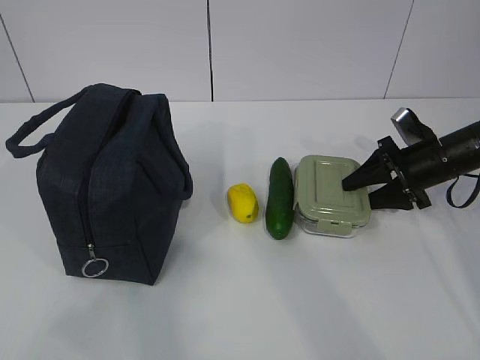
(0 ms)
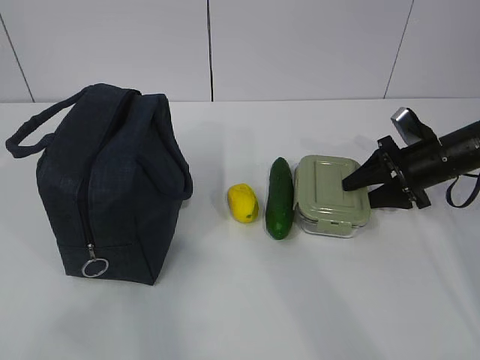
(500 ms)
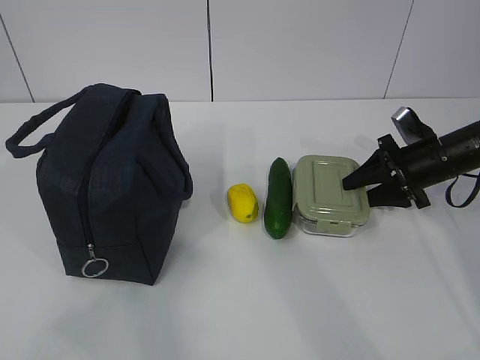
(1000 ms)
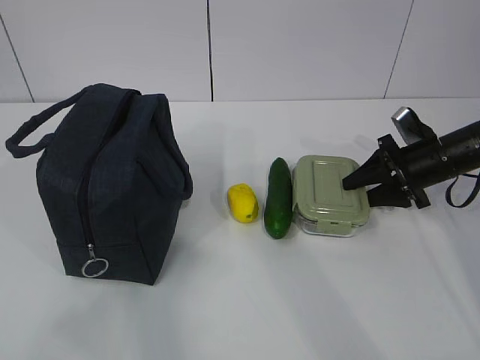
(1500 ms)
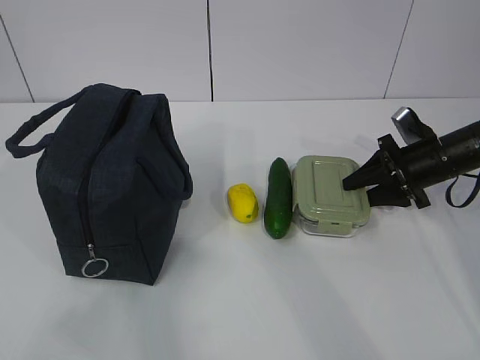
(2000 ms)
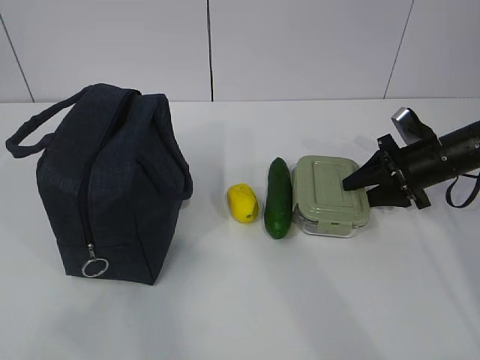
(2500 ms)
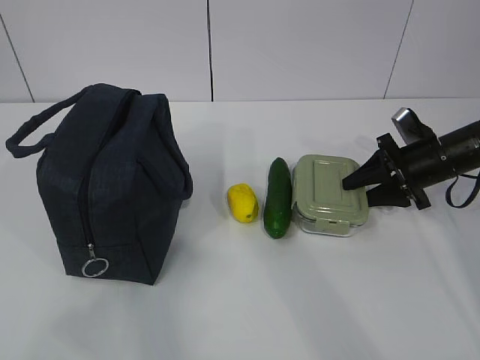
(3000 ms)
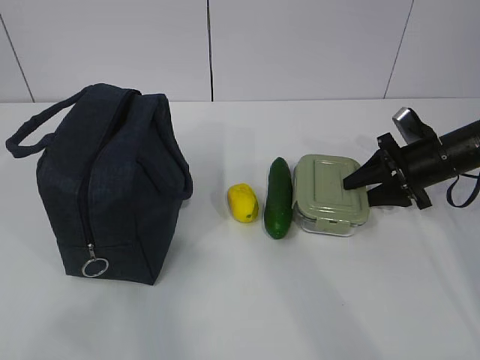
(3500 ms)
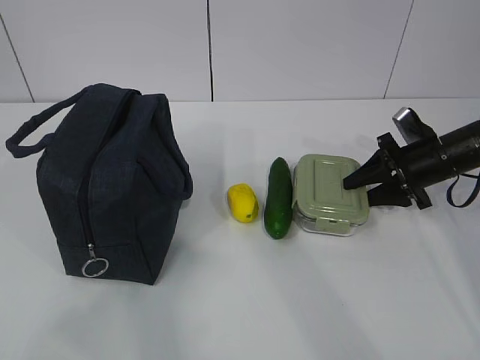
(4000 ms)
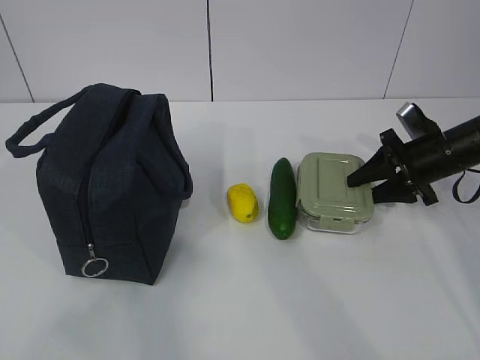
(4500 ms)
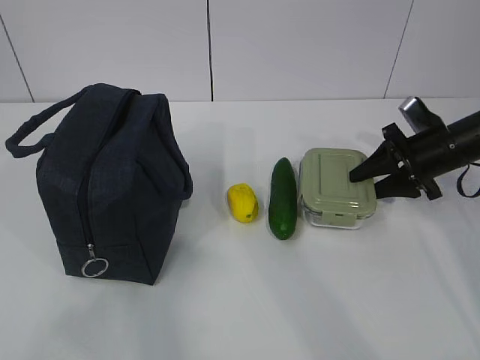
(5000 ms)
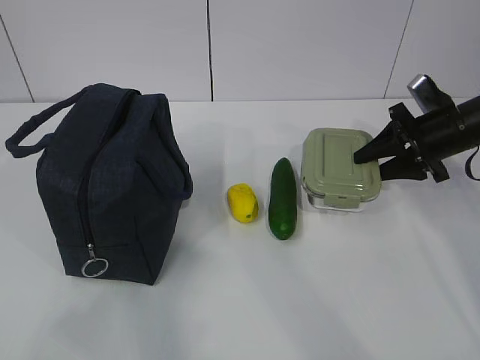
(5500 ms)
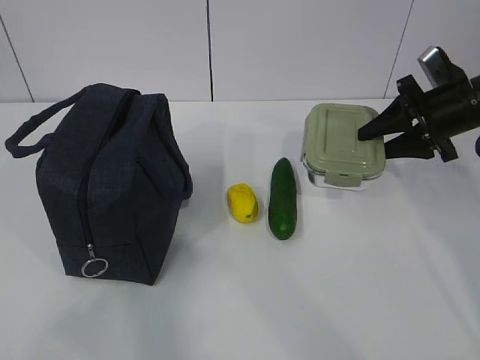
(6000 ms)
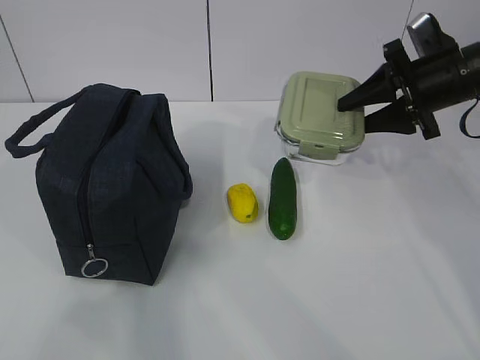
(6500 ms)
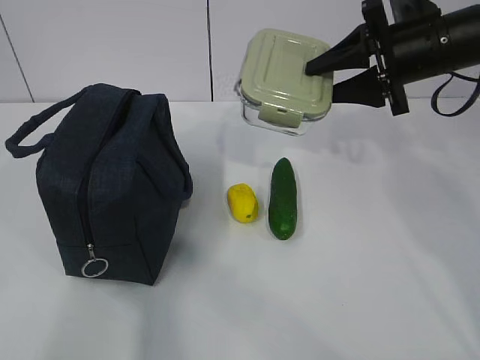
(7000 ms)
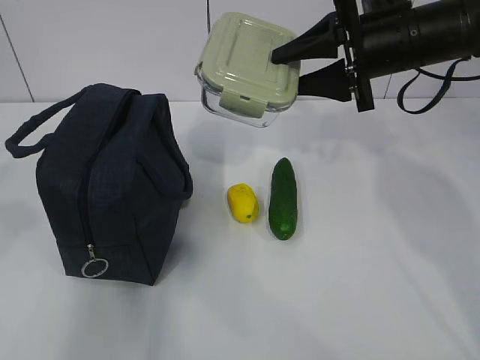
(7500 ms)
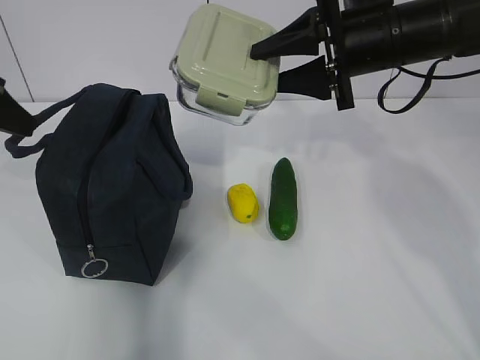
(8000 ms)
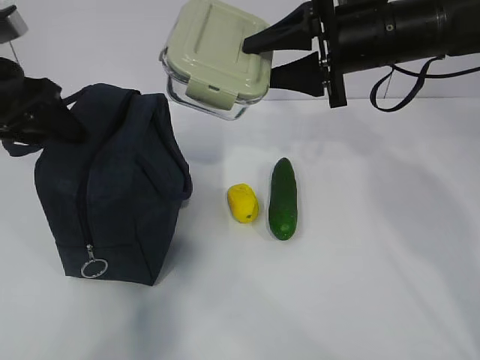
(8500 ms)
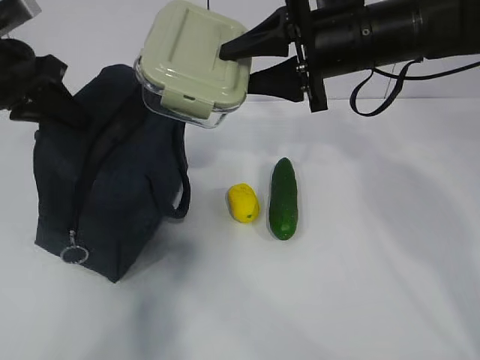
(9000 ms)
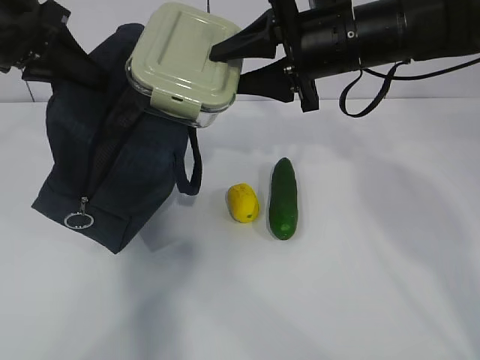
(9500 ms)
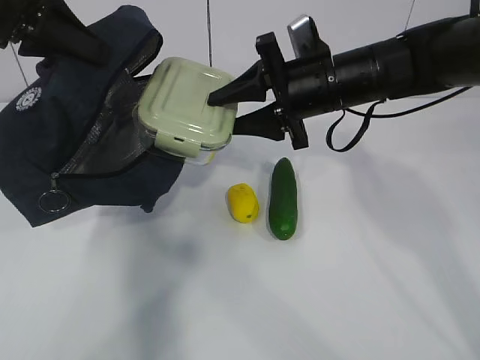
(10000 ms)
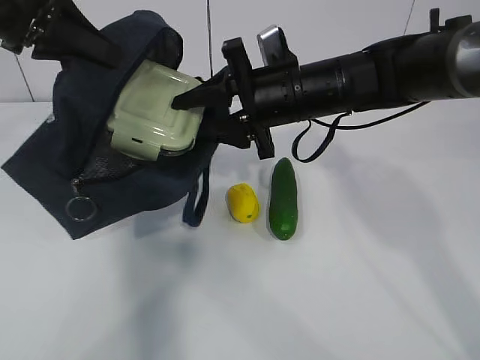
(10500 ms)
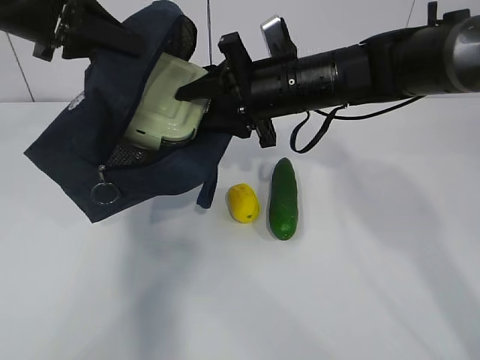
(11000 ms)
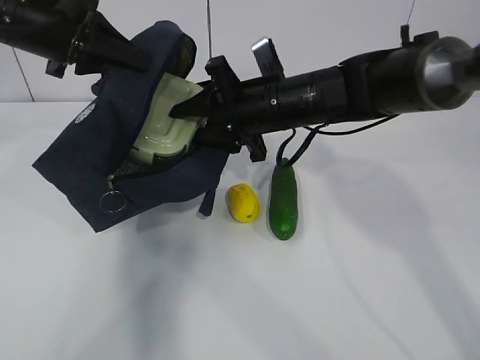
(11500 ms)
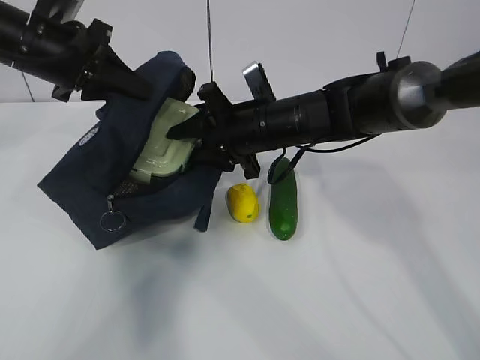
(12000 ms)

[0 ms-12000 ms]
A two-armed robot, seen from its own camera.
Step, 3000 ms to 7000 ms: Place it into the bag with your right hand.
Step, 7500 ms to 10500 ms: Grab the cucumber with your right hand.
0 ms to 4000 ms: The two grippers keep their place.
4000 ms to 6000 ms: The right gripper goes roughly 10 cm upward.
6000 ms to 8000 ms: The left gripper travels forward by about 30 cm, and opens. Meanwhile the right gripper shifts some 15 cm to the left and upward.
8000 ms to 10000 ms: The right gripper moves downward, some 5 cm; the left gripper goes about 10 cm forward and to the right, and closes its fingers.
10000 ms to 12000 ms: The left gripper moves downward and forward, approximately 10 cm. The right gripper moves to the left and downward, approximately 10 cm.

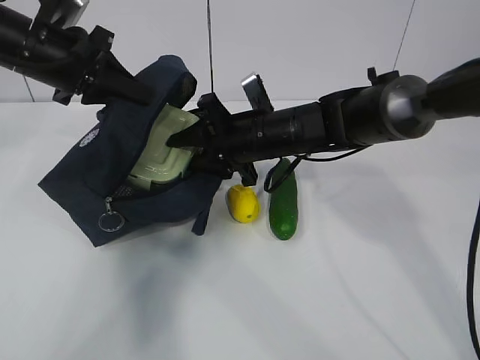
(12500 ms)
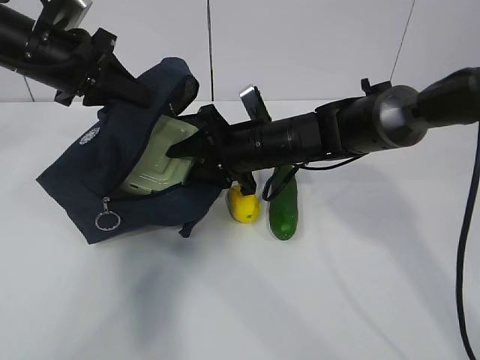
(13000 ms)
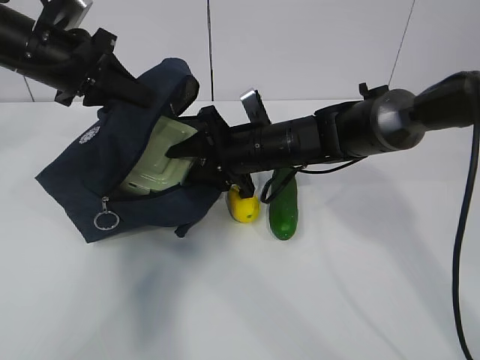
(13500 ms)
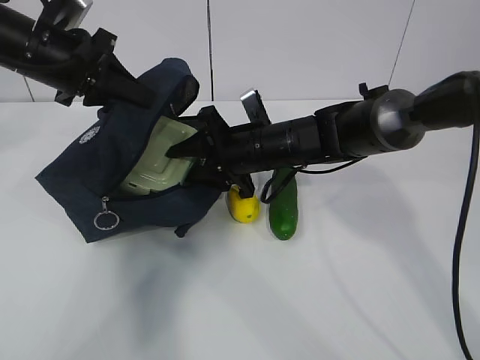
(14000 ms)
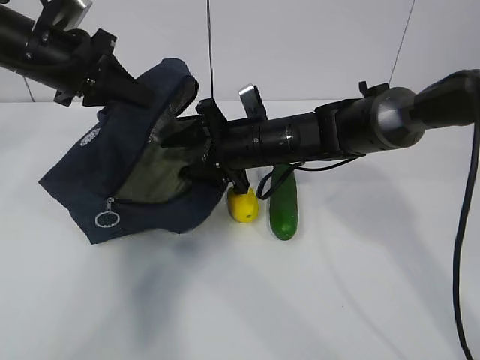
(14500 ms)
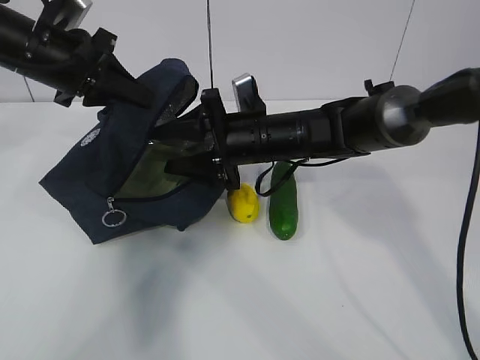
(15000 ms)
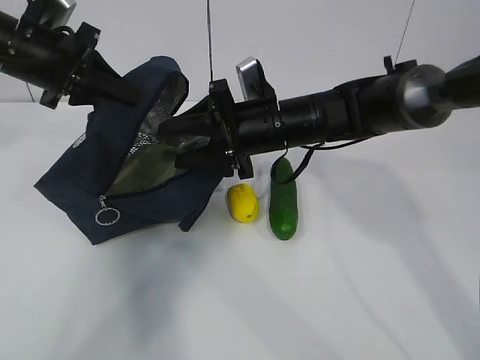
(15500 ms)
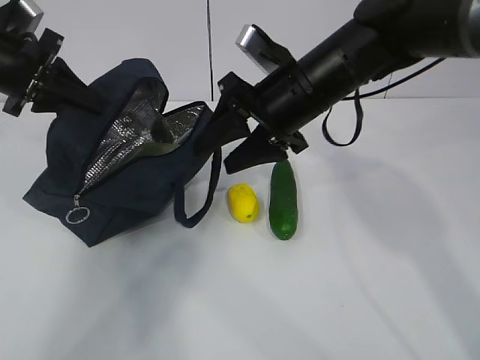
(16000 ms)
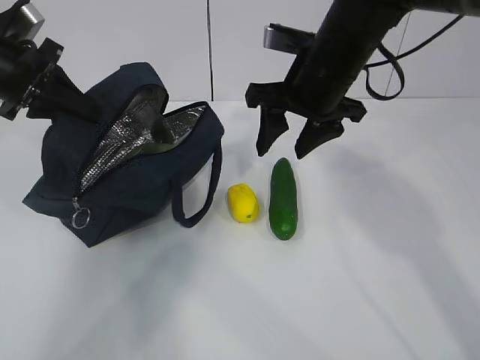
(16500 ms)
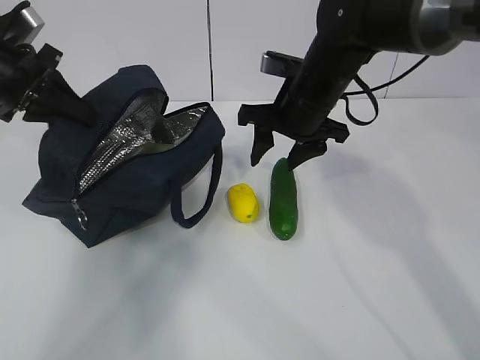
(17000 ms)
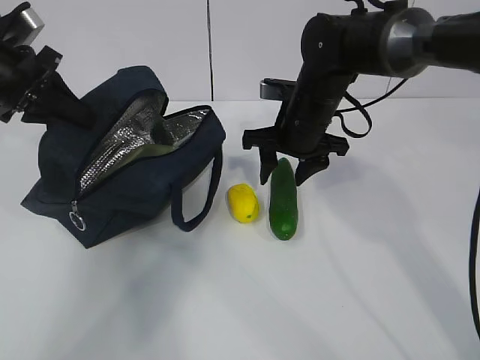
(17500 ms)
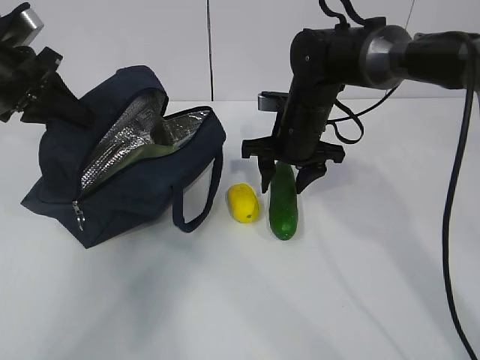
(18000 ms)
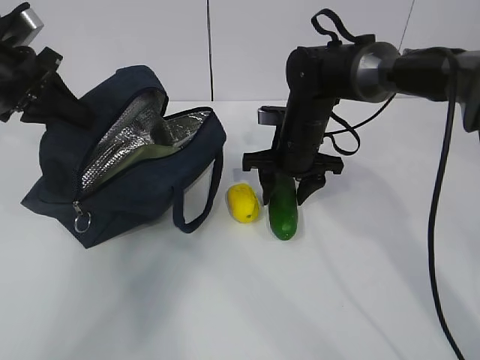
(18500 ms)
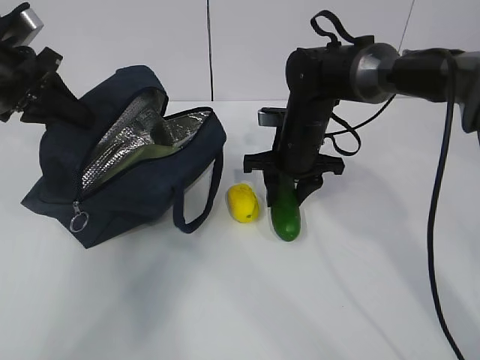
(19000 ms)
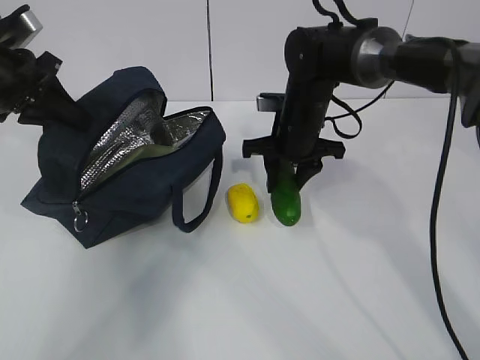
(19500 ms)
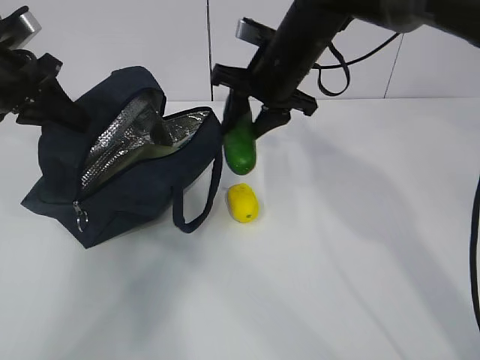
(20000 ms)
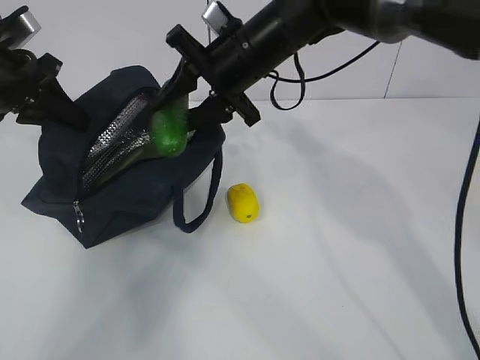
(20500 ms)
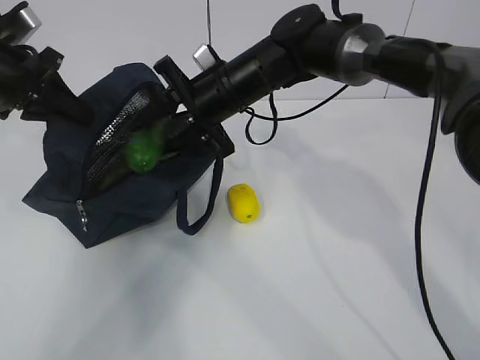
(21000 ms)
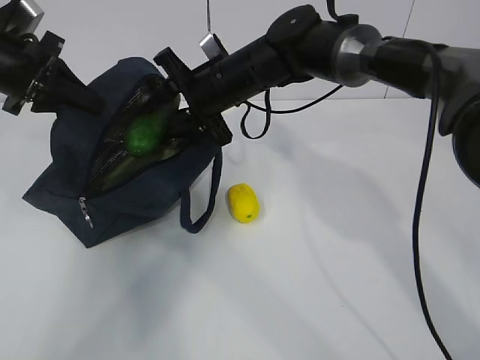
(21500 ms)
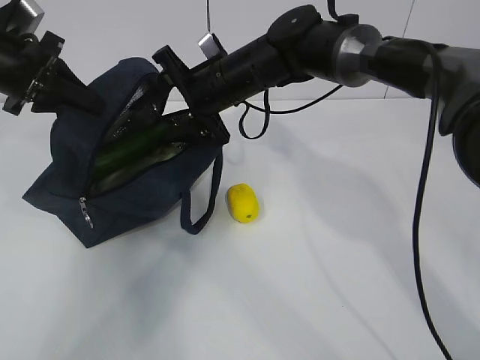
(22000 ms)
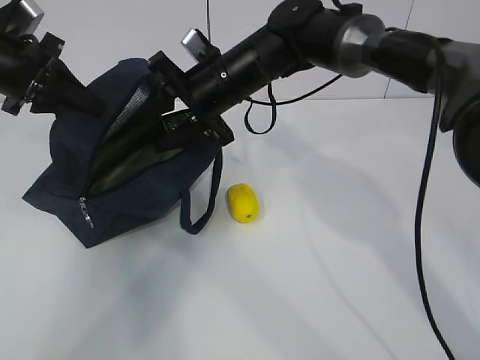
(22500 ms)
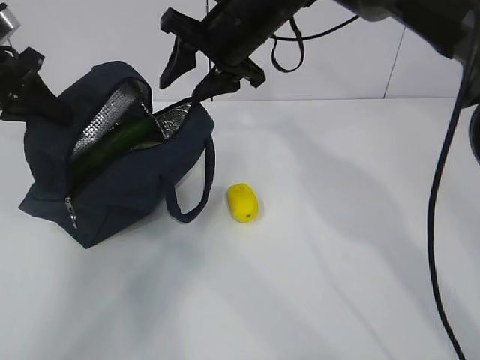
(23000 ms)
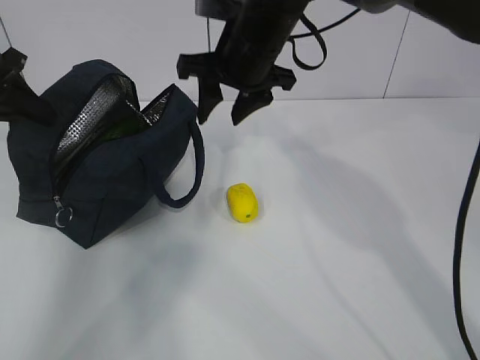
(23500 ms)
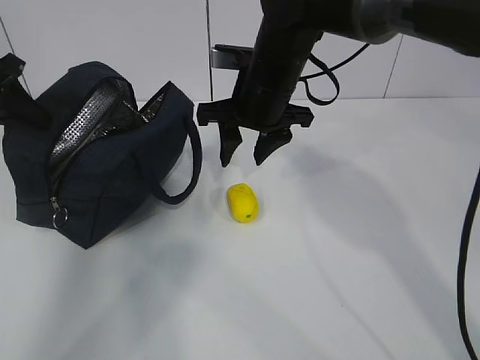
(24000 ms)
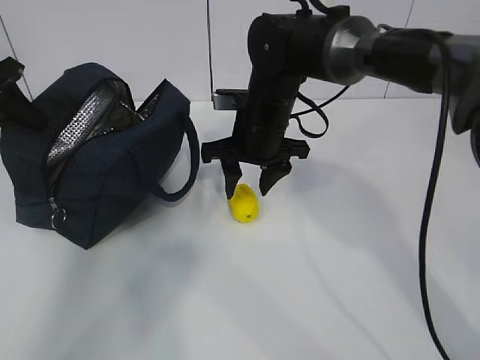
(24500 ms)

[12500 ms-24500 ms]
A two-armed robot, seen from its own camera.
Step, 14000 ms to 16500 ms: Grab the lemon with your right hand.
Step, 19500 ms to 22000 ms: Grab the lunch bag with your right hand.
Step, 22500 ms to 24000 ms: Move the lunch bag to the right.
12500 ms to 14500 ms: The grippers make only small movements.
14500 ms to 16500 ms: The right gripper shifts approximately 15 cm upward and to the right, while the left gripper travels to the left by approximately 5 cm.
16500 ms to 18500 ms: The right gripper moves downward and forward, some 15 cm.
18500 ms to 20500 ms: The right gripper moves upward and to the left, roughly 15 cm.
22500 ms to 24500 ms: The left gripper goes about 5 cm to the left. The right gripper ends up roughly 5 cm from where it was.

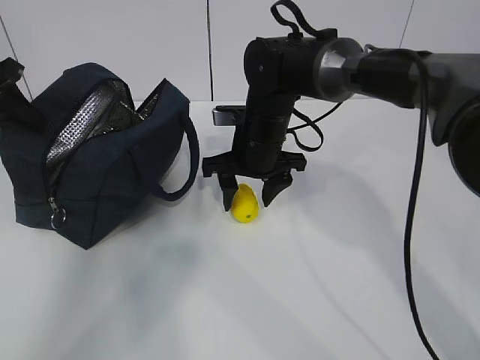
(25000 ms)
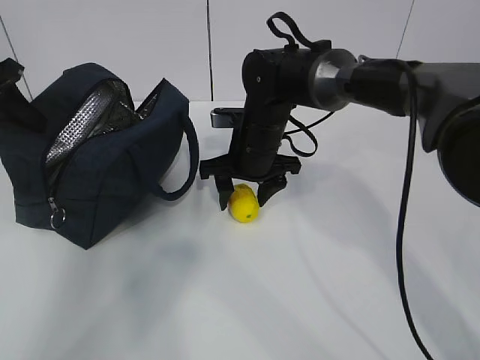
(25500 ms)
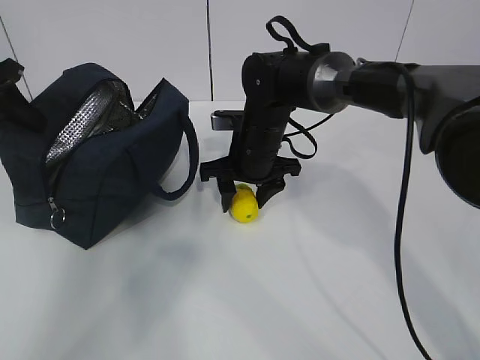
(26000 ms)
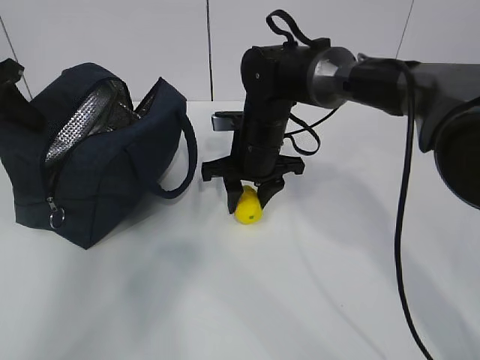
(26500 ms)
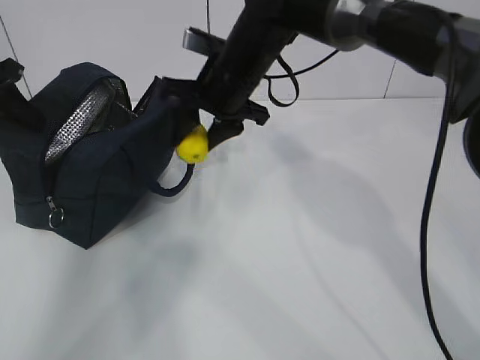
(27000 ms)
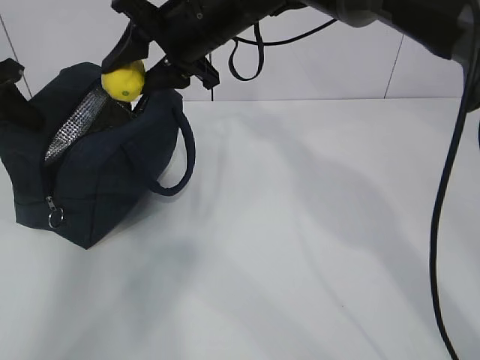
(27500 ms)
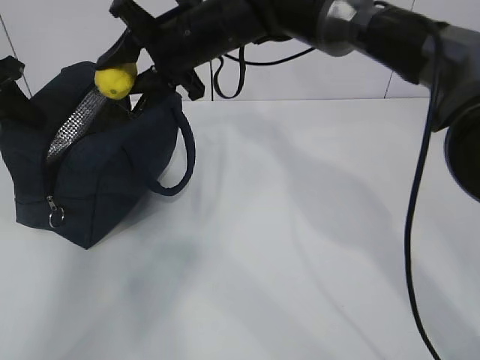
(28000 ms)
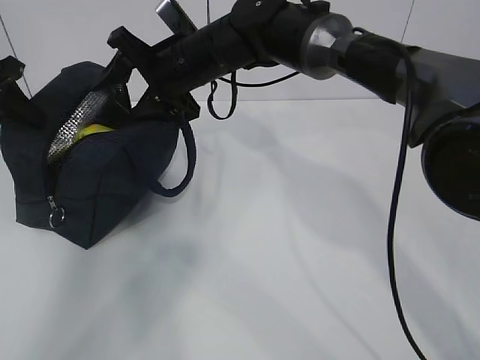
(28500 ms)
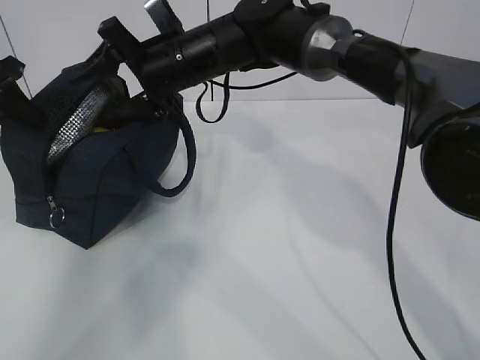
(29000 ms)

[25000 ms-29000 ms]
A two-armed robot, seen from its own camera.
25000 ms to 27000 ms: The right gripper goes some 10 cm upward.
27000 ms to 29000 ms: The right gripper goes some 5 cm to the left, and opens up.
